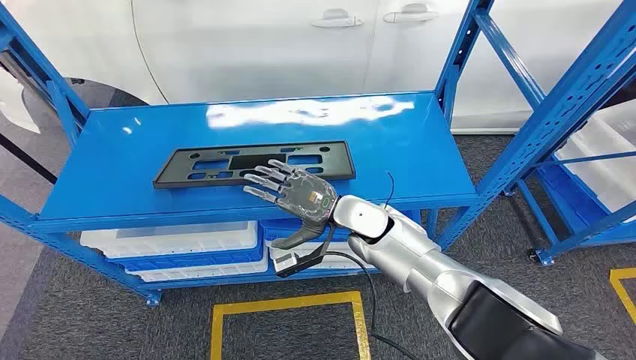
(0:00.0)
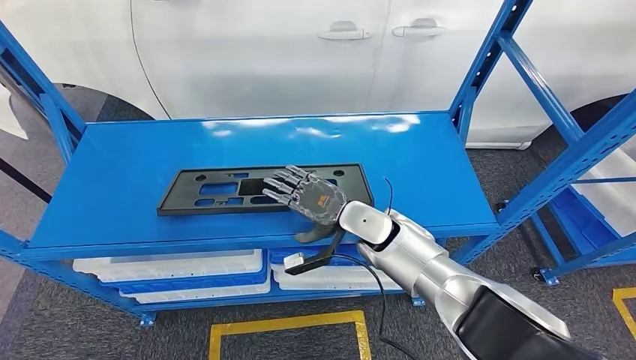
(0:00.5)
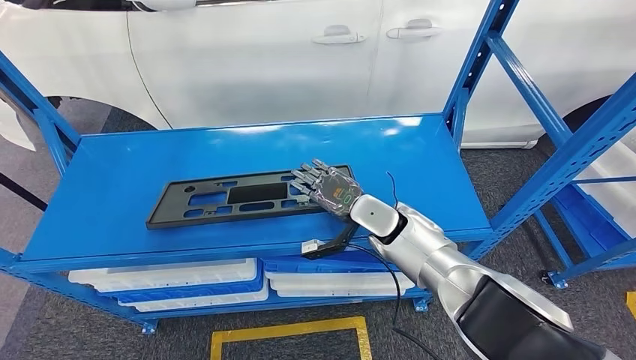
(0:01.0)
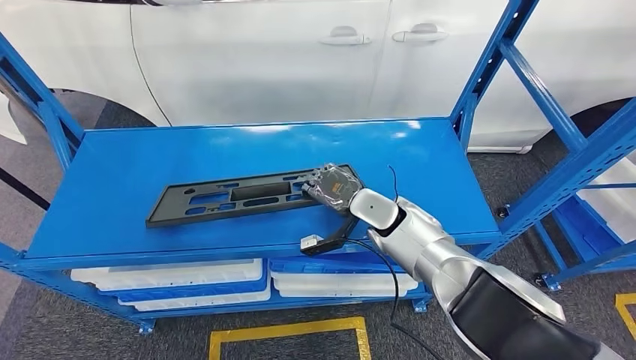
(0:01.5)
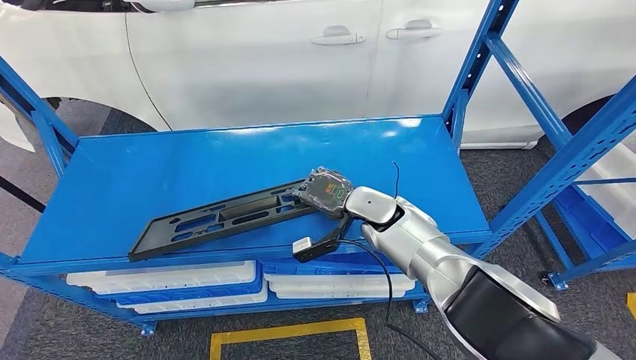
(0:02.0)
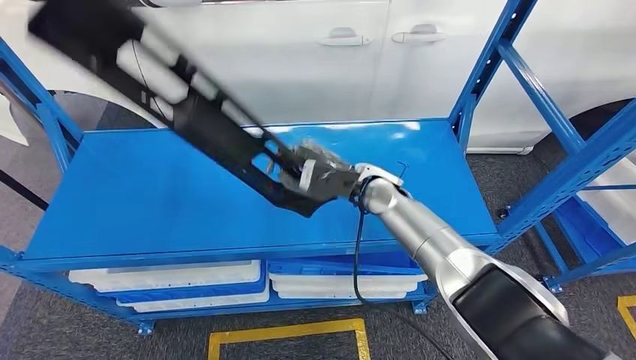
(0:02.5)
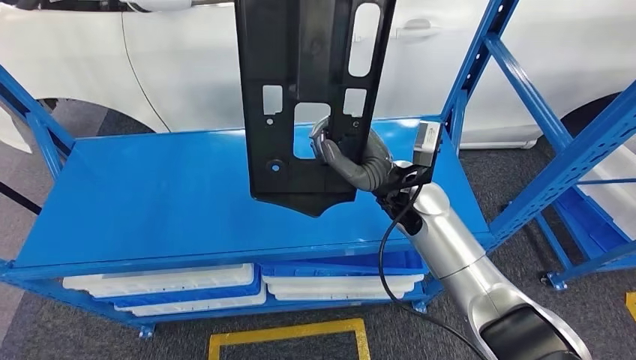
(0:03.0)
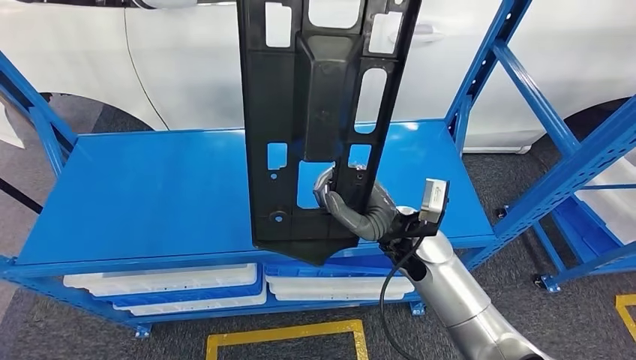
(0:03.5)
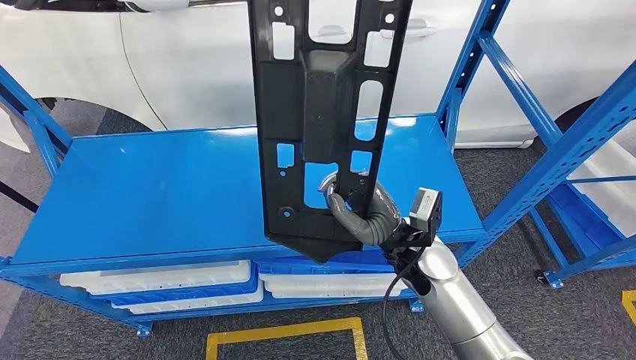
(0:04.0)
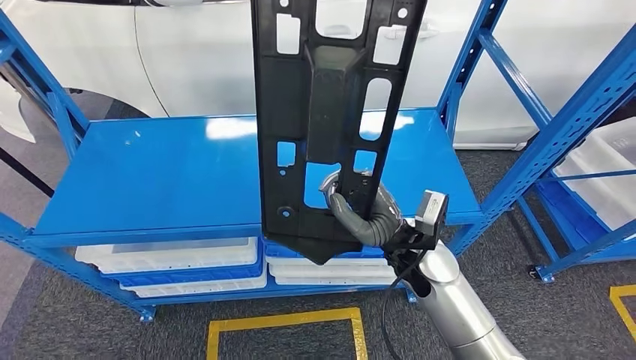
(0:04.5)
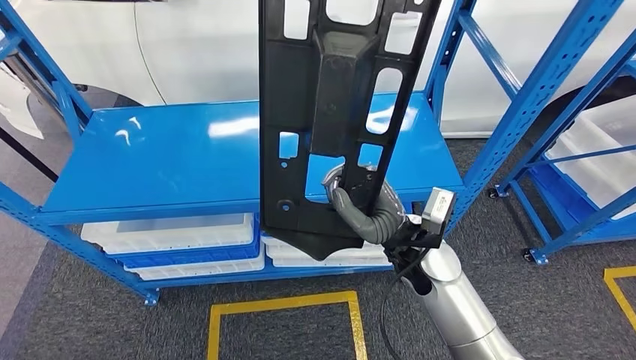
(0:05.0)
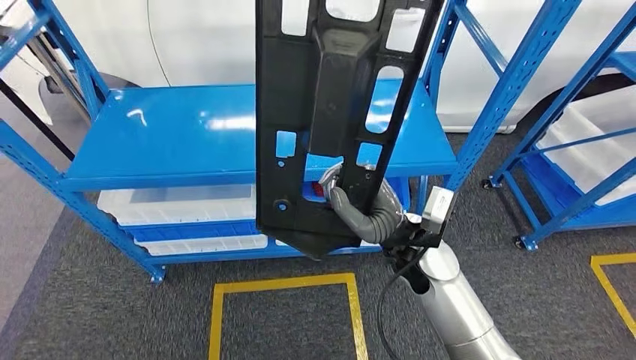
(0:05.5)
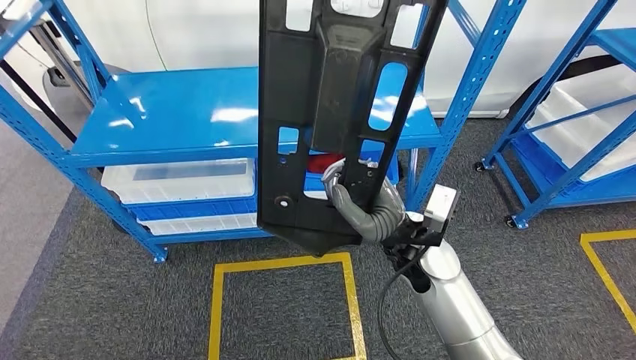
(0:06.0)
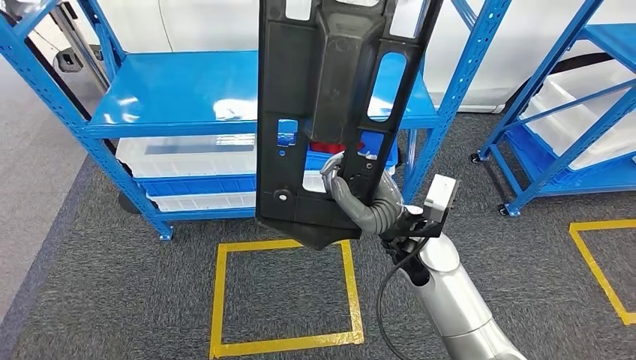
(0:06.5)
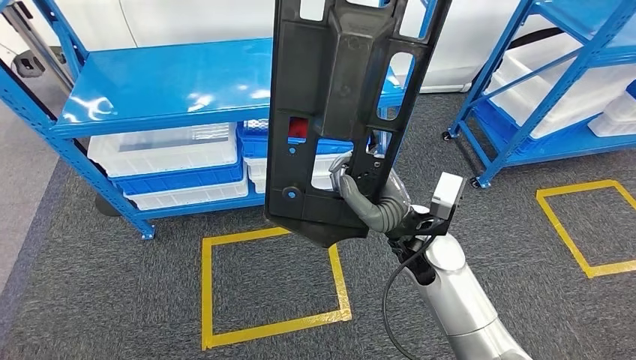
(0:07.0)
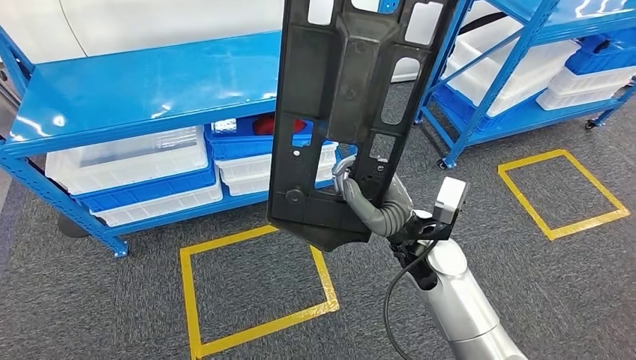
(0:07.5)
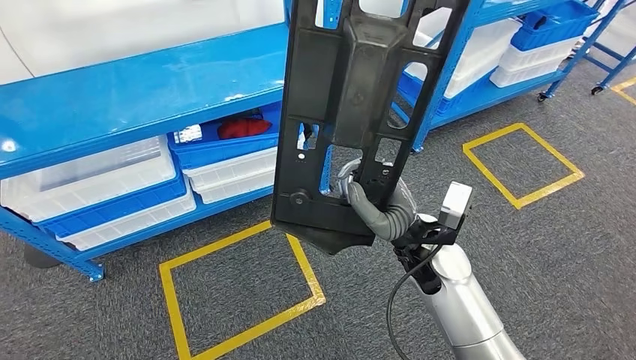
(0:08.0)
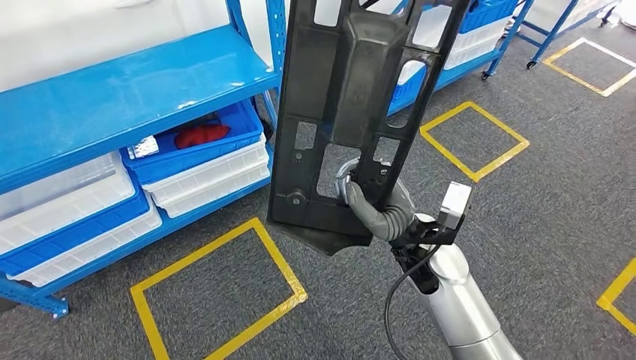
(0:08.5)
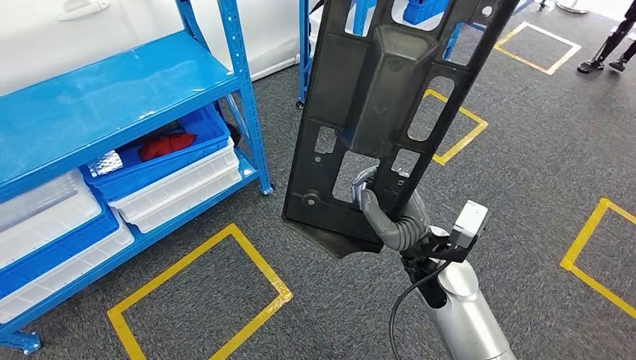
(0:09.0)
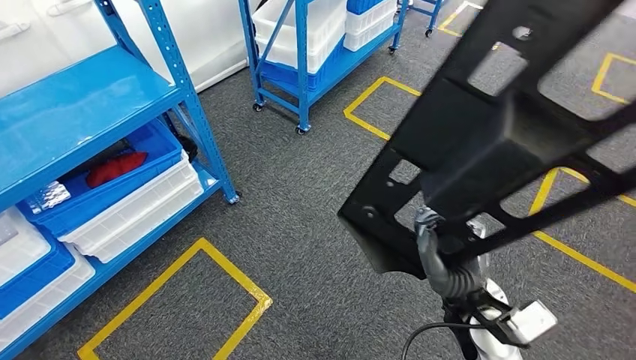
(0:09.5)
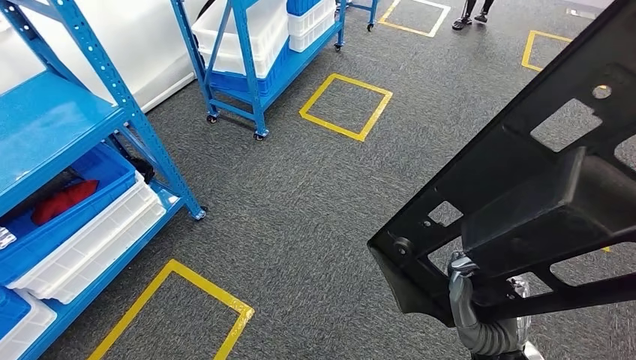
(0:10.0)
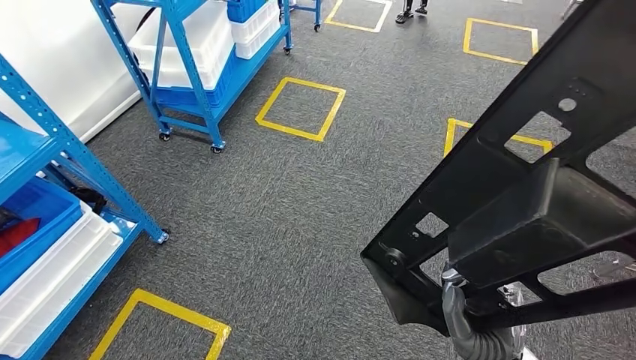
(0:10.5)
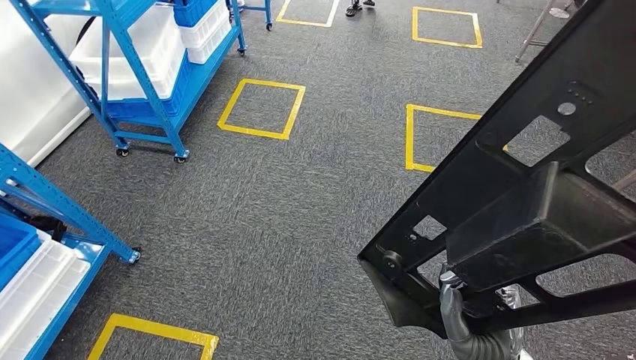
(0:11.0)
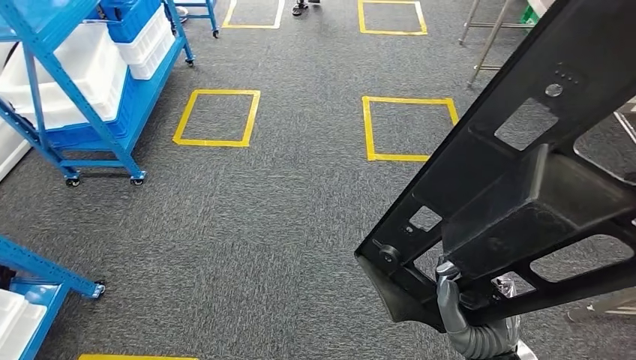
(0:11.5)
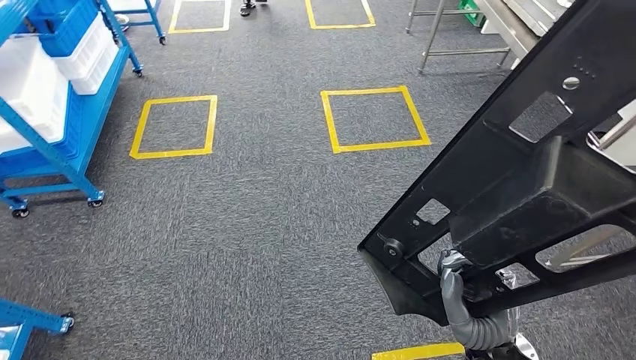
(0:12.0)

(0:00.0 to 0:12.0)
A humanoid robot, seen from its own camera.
Step, 0:00.0 - 0:02.5: Pick up the large material from the shelf.

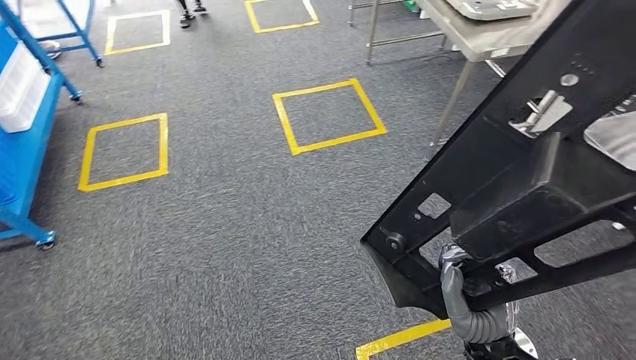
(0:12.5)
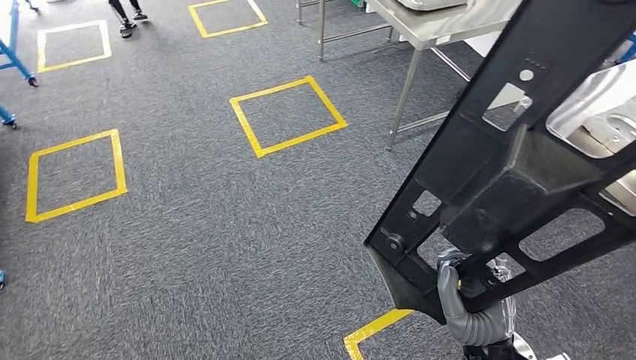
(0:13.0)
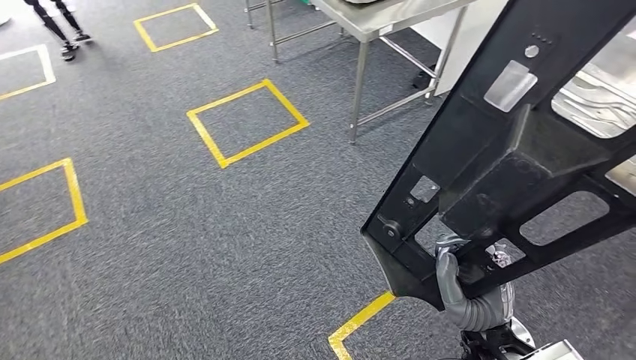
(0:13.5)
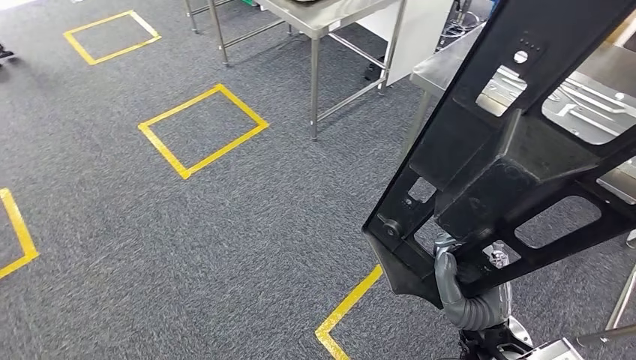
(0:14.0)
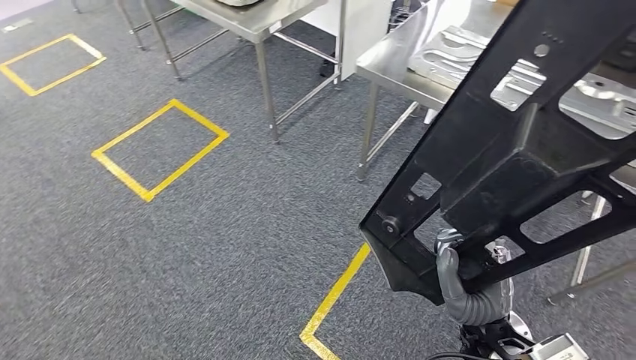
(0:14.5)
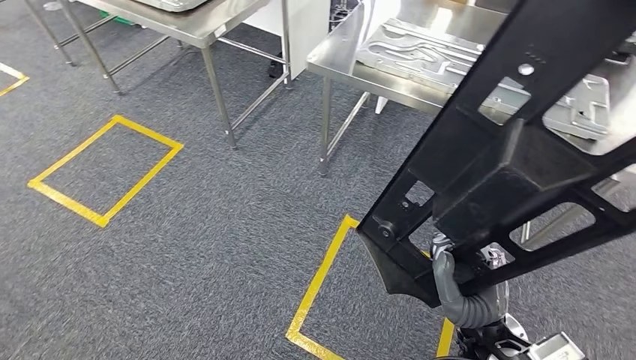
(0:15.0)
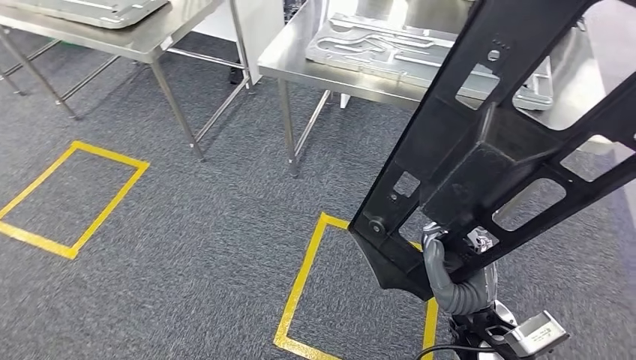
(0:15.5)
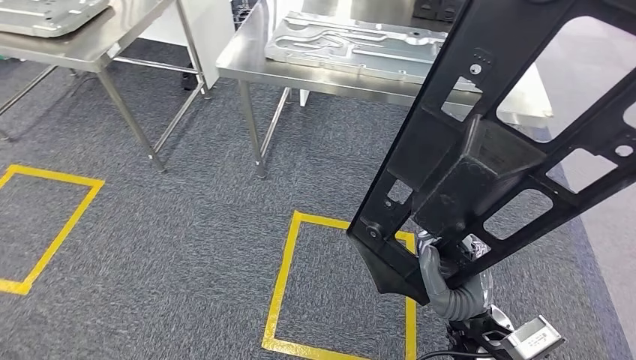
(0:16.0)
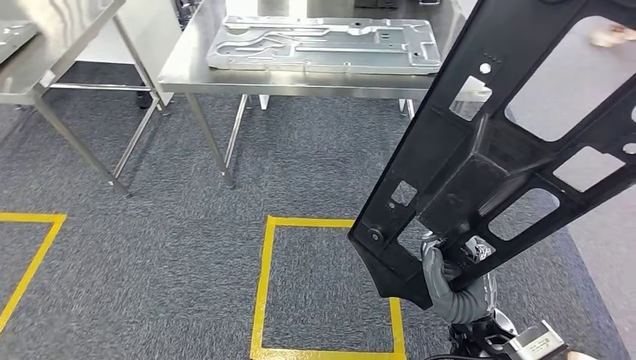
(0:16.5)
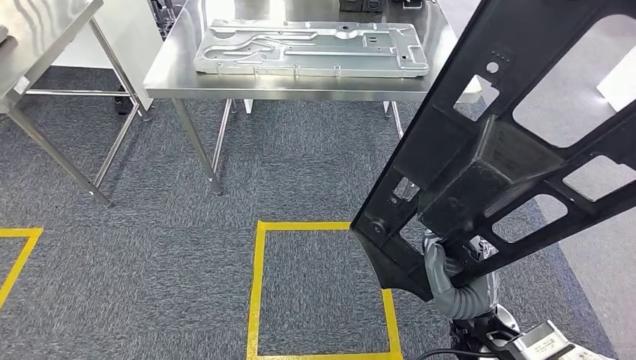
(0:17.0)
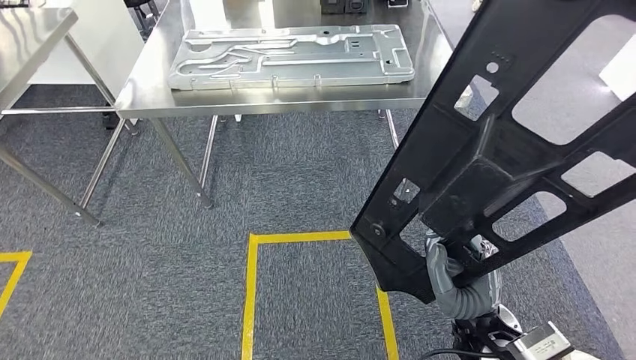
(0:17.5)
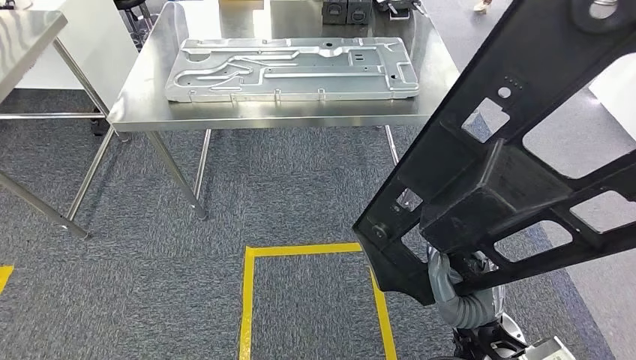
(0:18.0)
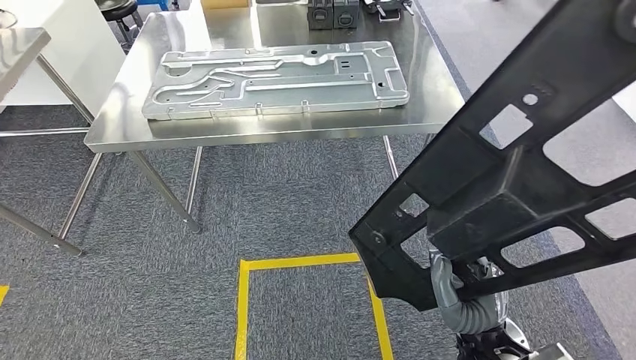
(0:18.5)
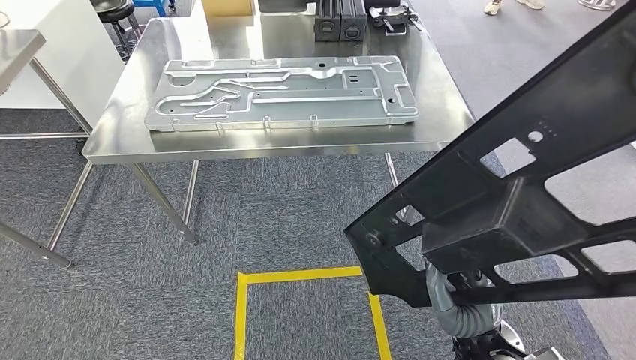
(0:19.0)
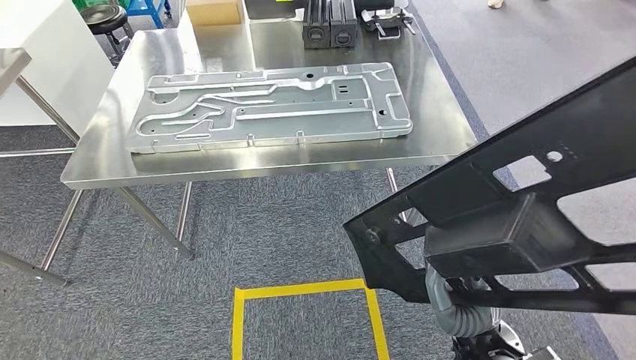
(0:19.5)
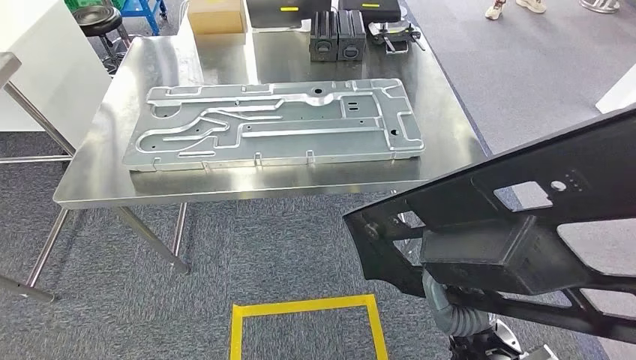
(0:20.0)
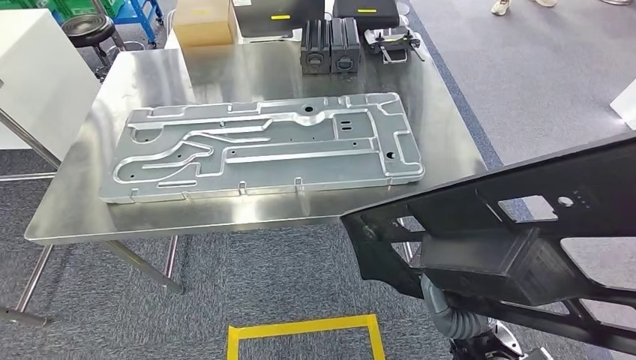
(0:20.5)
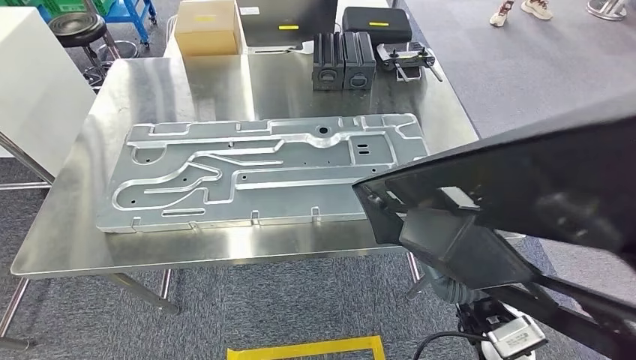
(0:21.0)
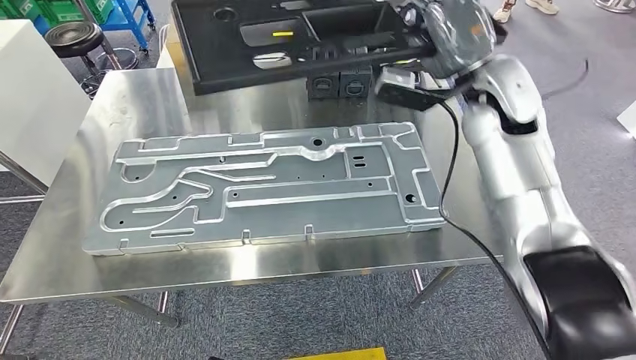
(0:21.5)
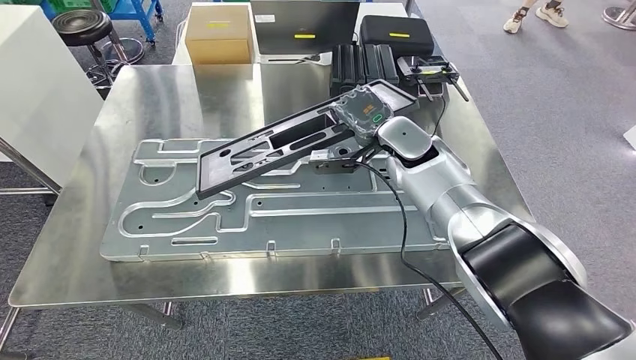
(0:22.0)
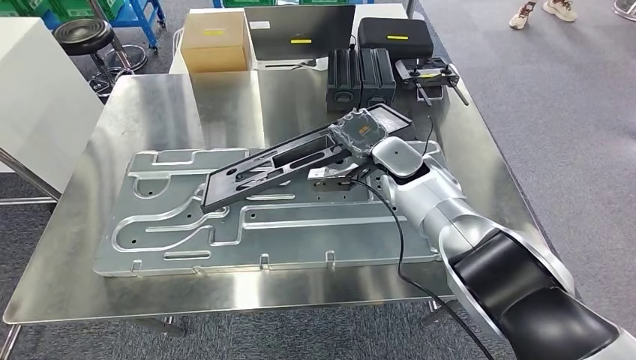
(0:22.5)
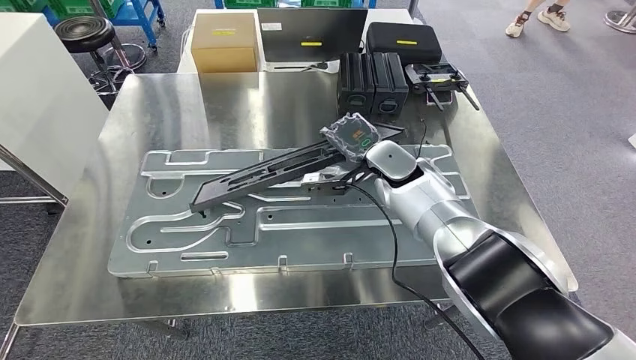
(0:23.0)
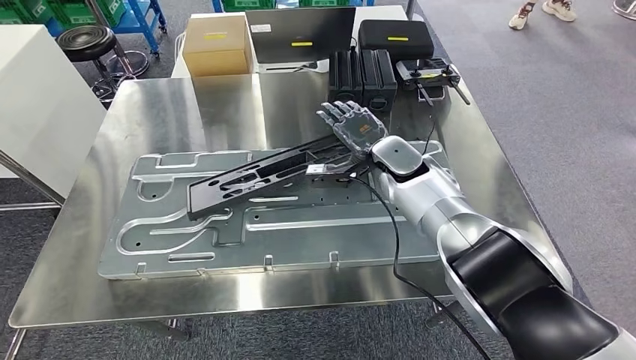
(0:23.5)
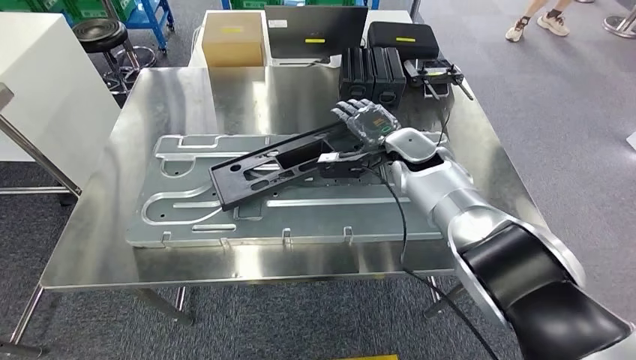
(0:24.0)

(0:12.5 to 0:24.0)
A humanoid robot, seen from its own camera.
Step, 0:12.5 - 0:21.0: Move the large material to the workbench.
